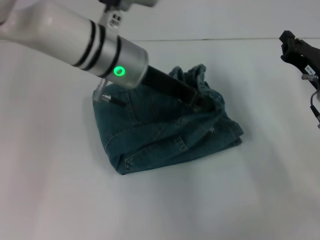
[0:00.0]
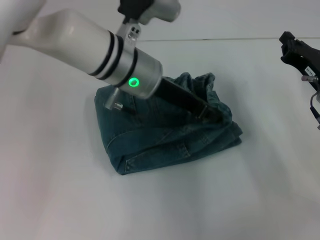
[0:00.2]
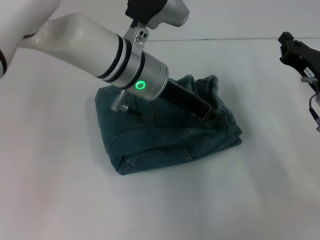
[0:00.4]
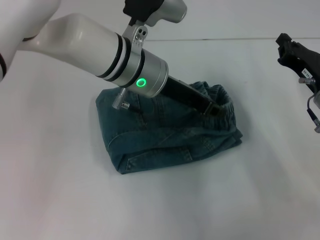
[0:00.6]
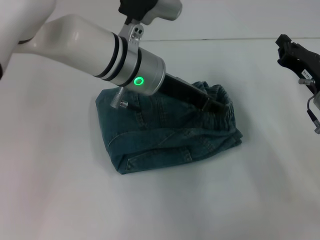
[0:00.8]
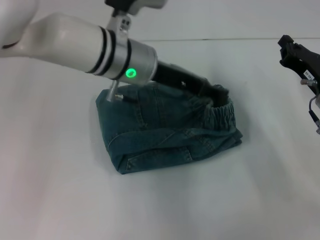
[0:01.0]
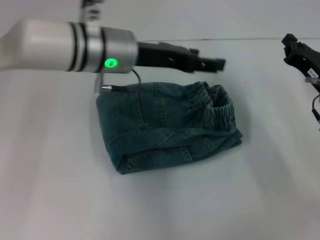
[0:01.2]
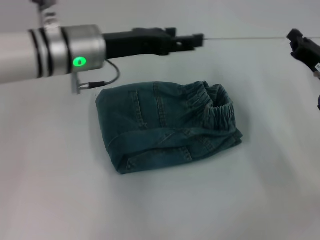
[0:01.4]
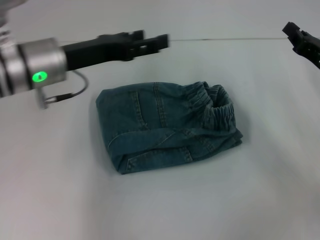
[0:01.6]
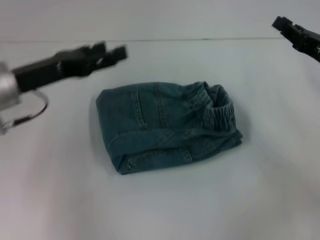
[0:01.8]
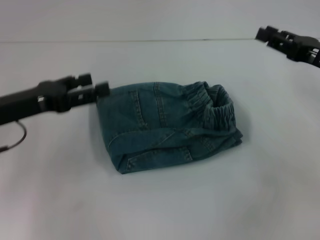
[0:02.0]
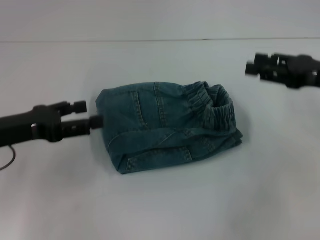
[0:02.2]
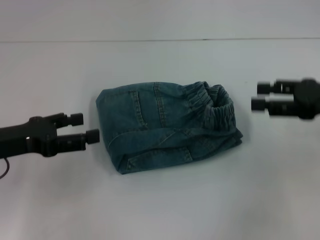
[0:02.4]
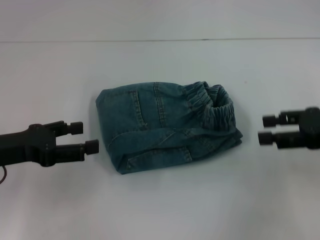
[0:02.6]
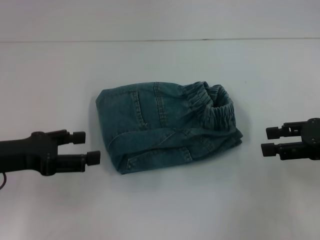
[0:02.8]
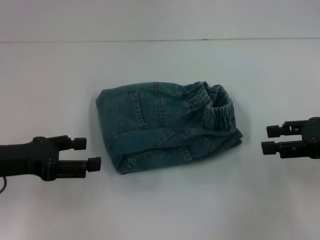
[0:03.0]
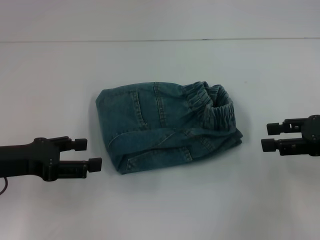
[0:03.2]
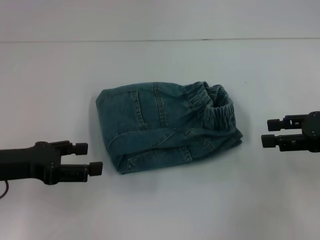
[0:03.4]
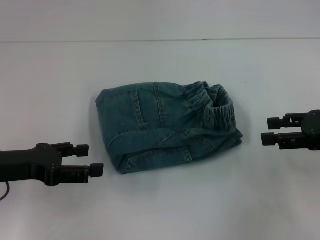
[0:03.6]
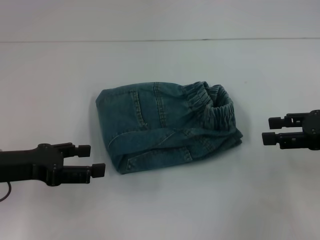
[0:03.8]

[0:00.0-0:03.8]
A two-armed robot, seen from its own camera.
0:00.0 to 0:01.2: The left gripper opens up.
0:01.2 to 0:02.6: The left gripper heads to the left and backward, covering approximately 25 cm; the right gripper shifts some 10 cm upward, and opens.
0:02.6 to 0:03.8: The grippers make only small movements.
